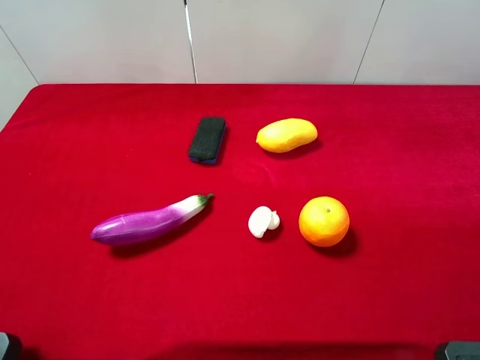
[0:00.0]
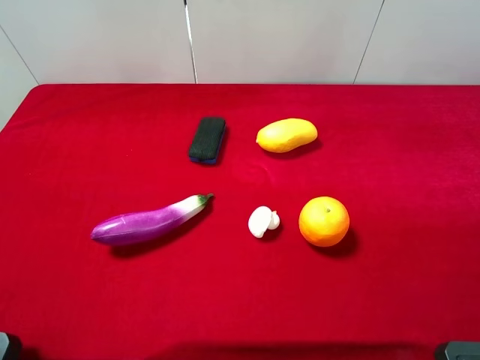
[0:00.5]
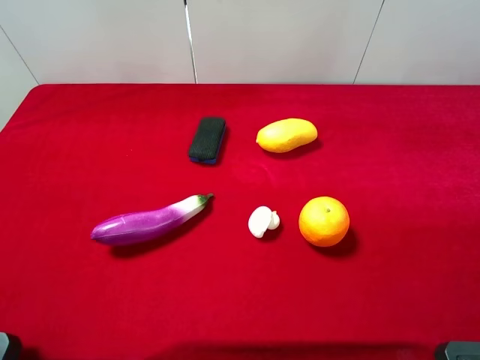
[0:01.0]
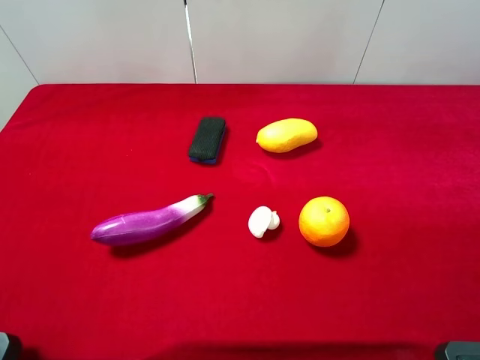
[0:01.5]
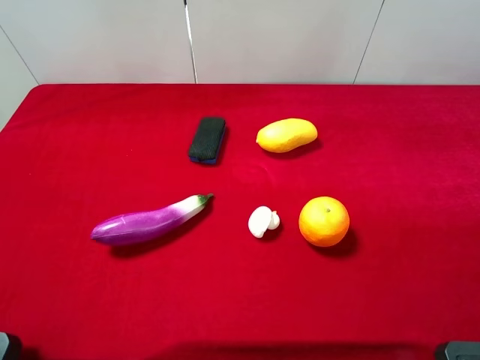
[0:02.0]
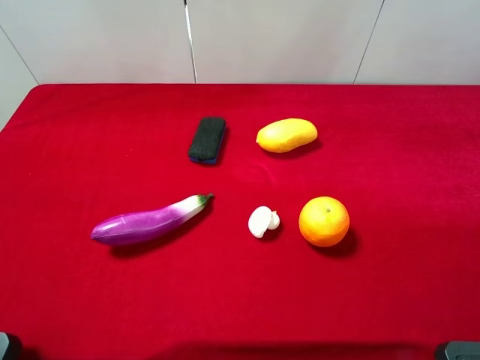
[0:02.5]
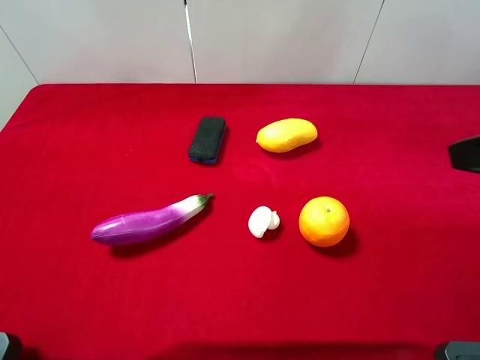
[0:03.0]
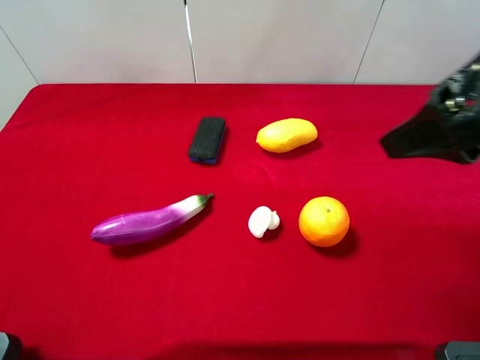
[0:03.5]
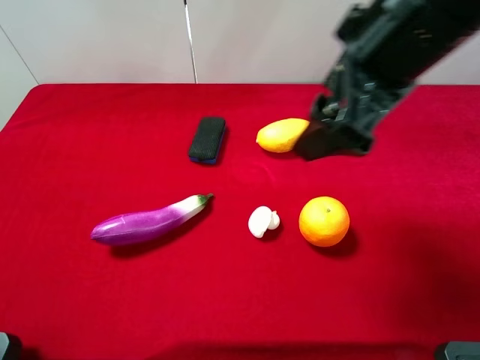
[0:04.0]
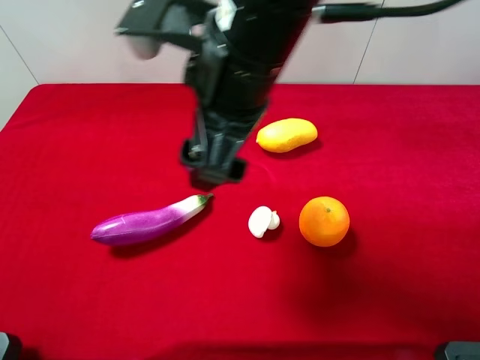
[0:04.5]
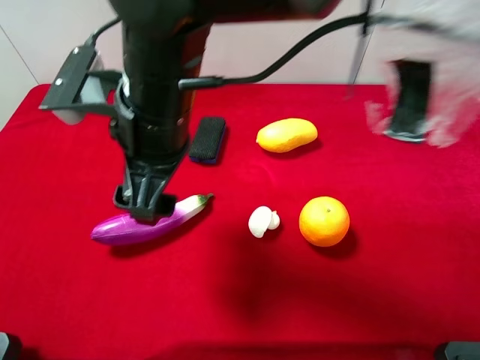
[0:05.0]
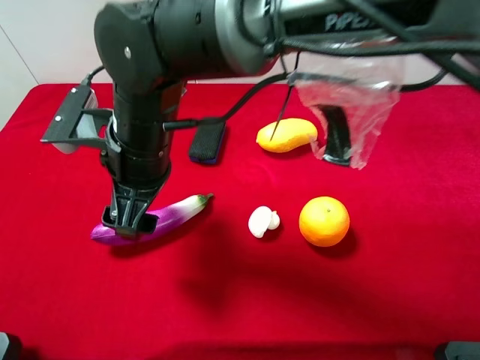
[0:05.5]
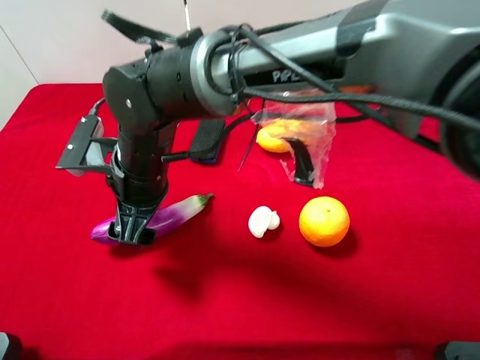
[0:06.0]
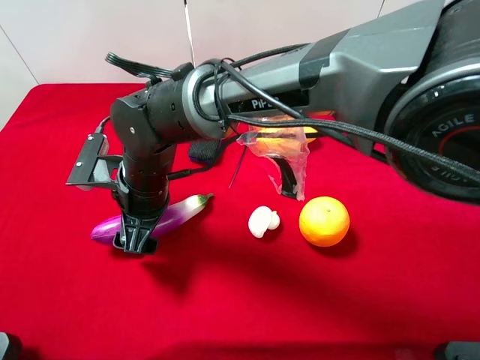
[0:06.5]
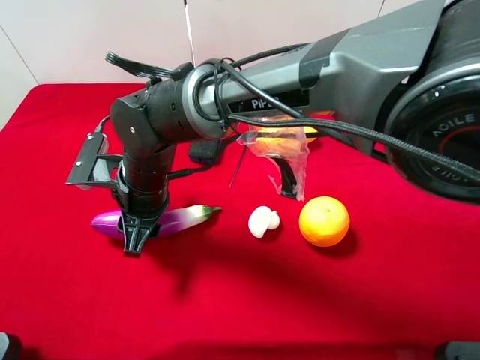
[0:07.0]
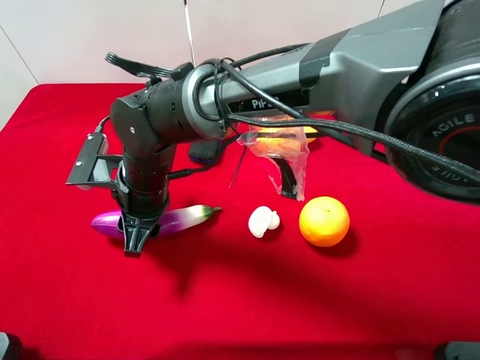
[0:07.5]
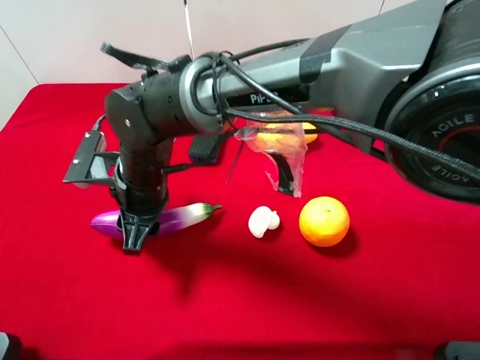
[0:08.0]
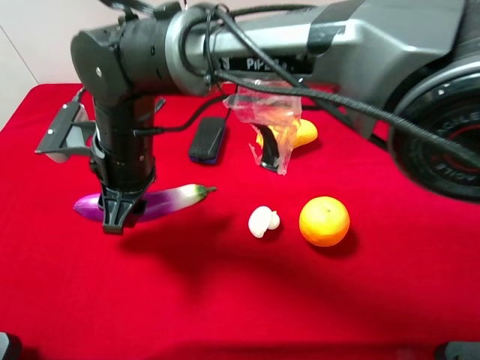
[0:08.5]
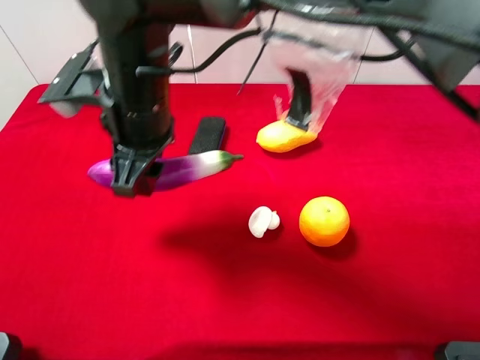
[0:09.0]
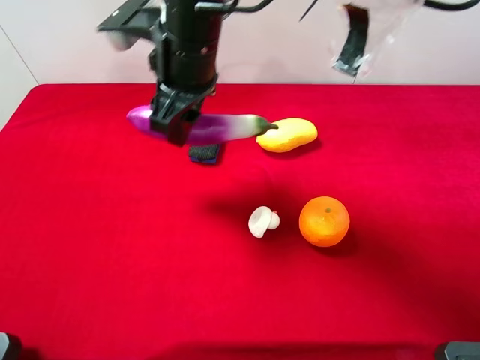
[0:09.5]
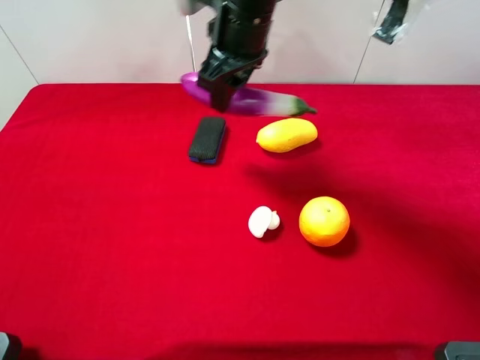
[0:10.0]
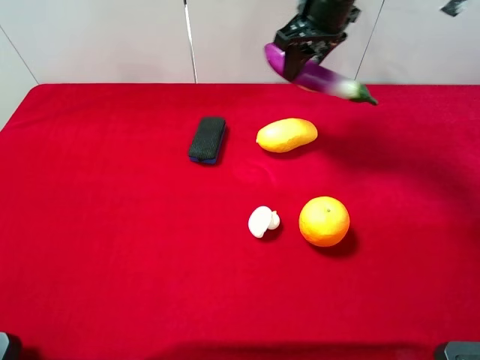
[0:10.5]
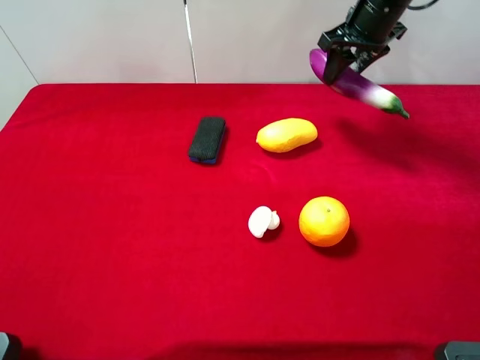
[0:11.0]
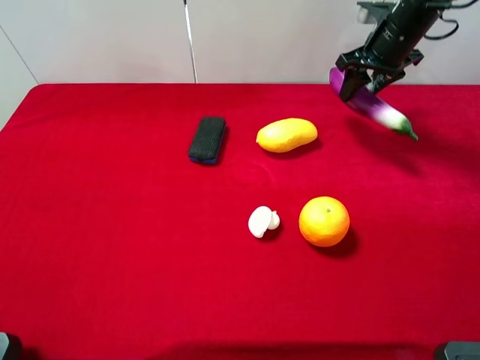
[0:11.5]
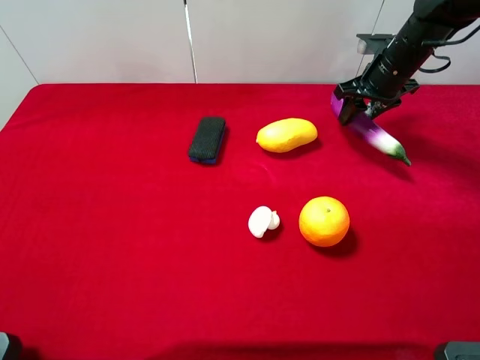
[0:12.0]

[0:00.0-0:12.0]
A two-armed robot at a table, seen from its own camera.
Task of the whole recording: the gripper move the object.
Step, 0:00.0 to 0:07.0: Grasp the eggplant with the right gripper.
0:00.0 to 0:02.0: Neither gripper changes place.
0:02.0 to 0:04.0: The right gripper is displaced forward and to the left by about 25 cm.
0:04.0 to 0:06.0: The right gripper is displaced to the left and downward by about 30 cm.
0:06.0 to 0:08.0: The right gripper closes.
0:08.0 to 0:10.0: The right gripper moves upward, forward and to the right, some 25 cm.
0:10.0 to 0:12.0: The right gripper heads to the right and downward, covering roughly 25 cm.

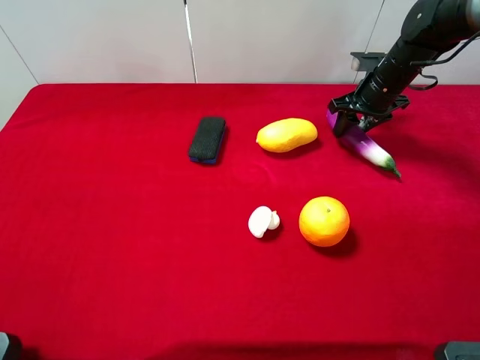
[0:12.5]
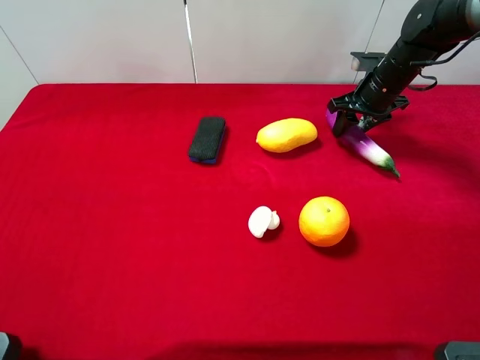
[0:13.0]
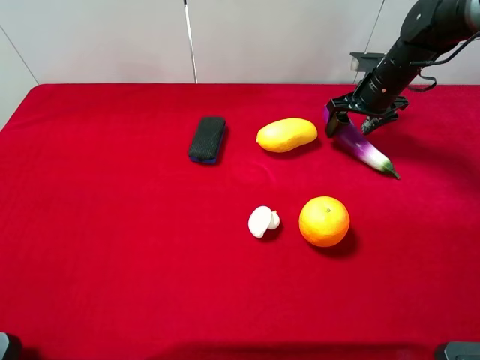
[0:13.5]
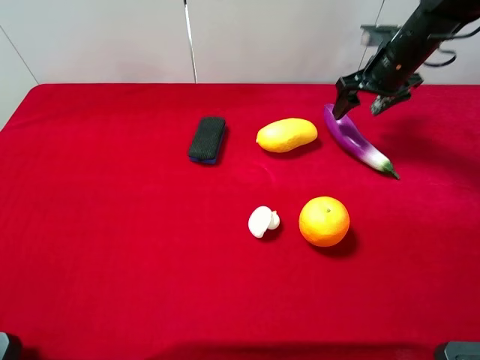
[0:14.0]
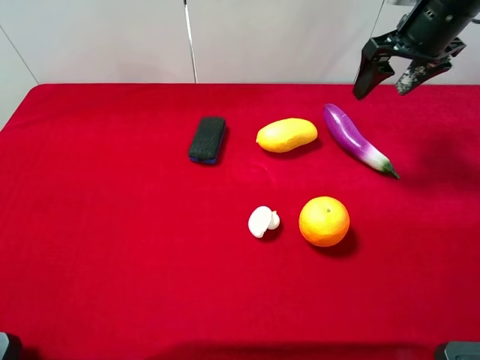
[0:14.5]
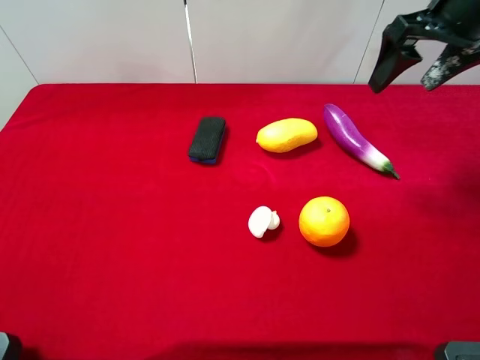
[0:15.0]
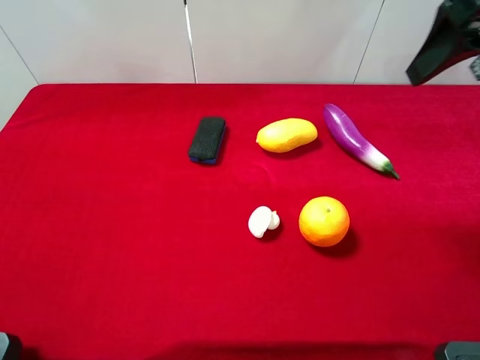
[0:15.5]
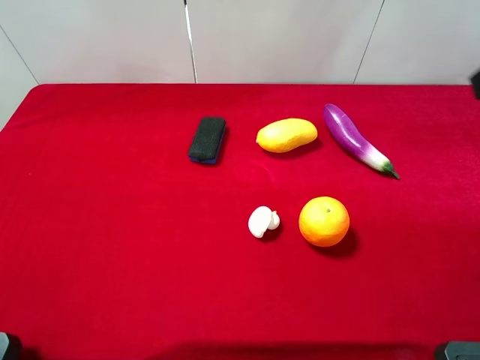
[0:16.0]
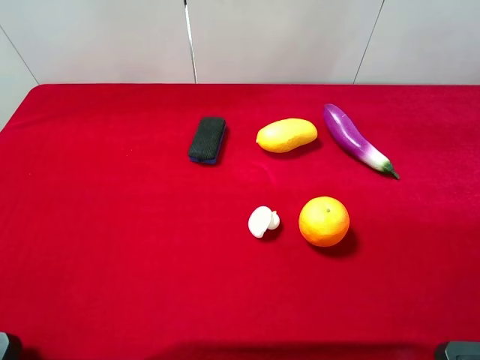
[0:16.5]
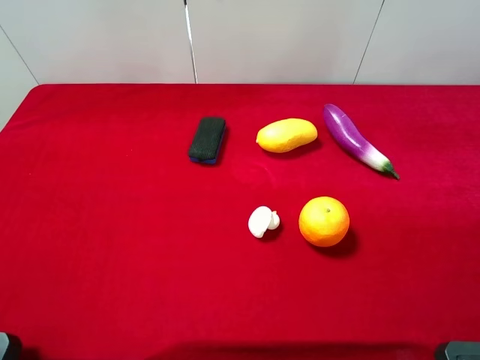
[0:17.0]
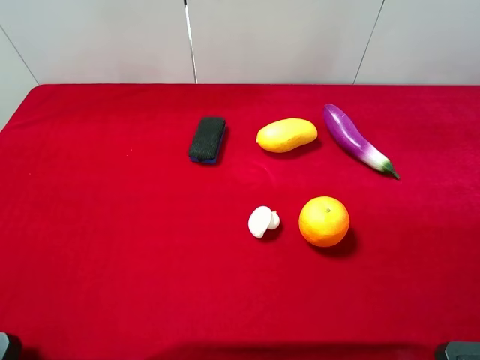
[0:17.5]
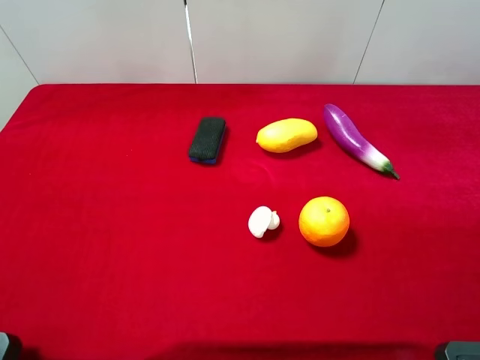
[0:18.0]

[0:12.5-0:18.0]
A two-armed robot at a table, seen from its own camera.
Task of the whole recording: the gripper move the object.
0:12.5 to 0:14.5: The right gripper shifts about 15 cm upward, and opens its fingers.
0:14.5 to 0:16.0: The right gripper travels backward and upward by roughly 25 cm.
